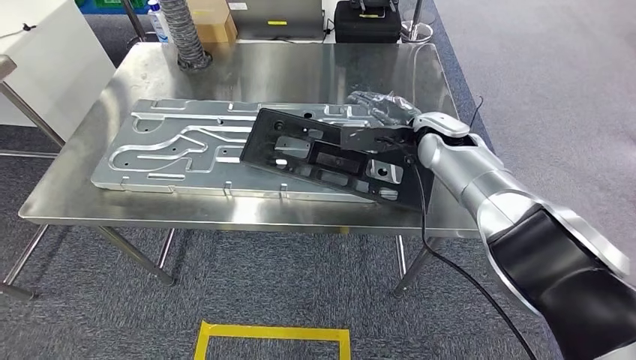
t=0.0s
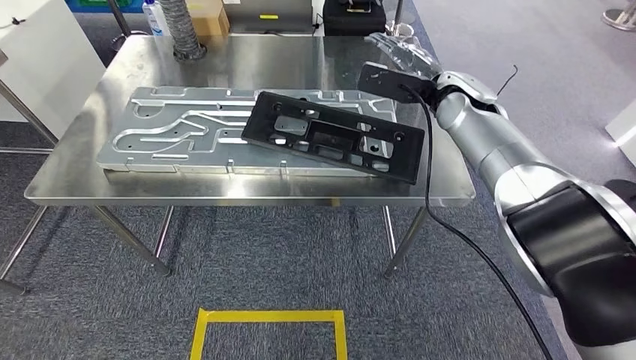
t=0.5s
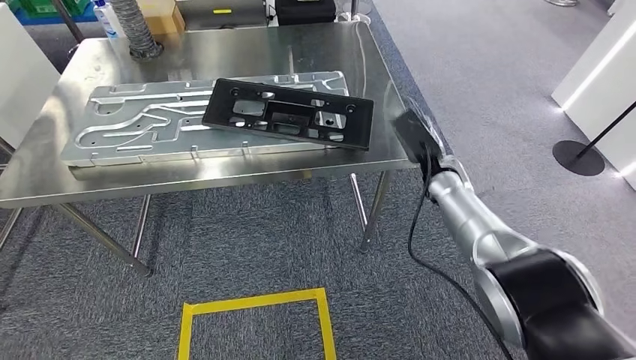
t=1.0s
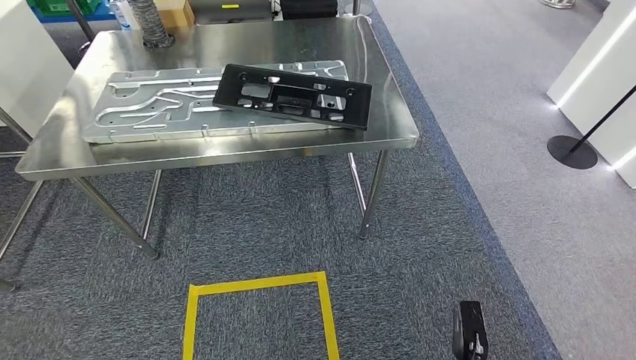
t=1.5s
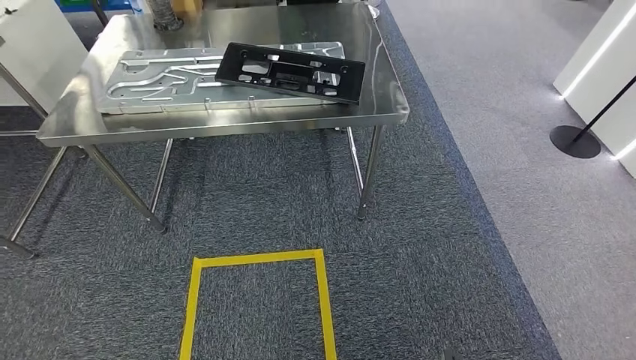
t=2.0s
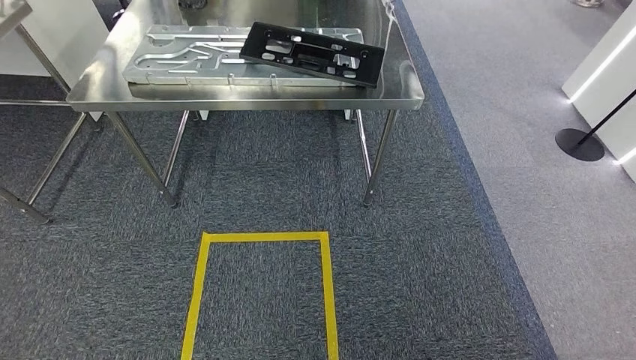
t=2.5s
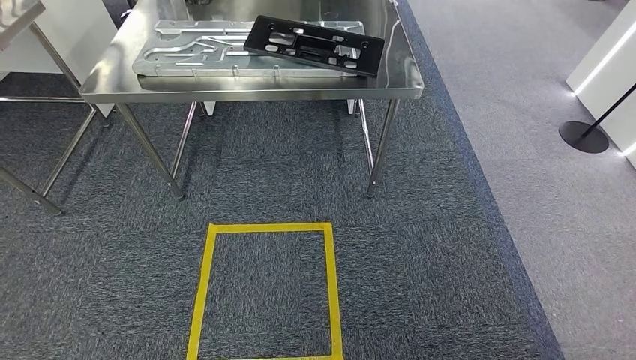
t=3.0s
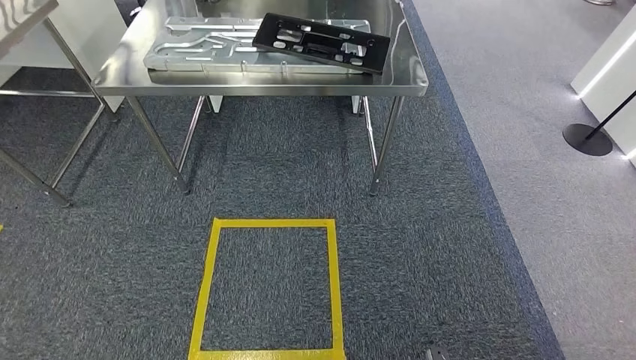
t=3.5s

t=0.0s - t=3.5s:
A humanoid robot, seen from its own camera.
Step, t=1.5s - t=3.5s: Move to the initial position of the shelf.

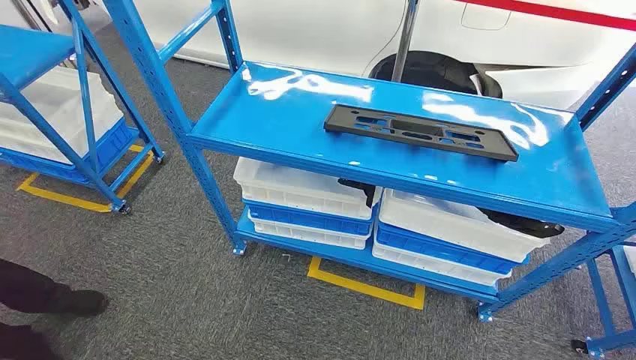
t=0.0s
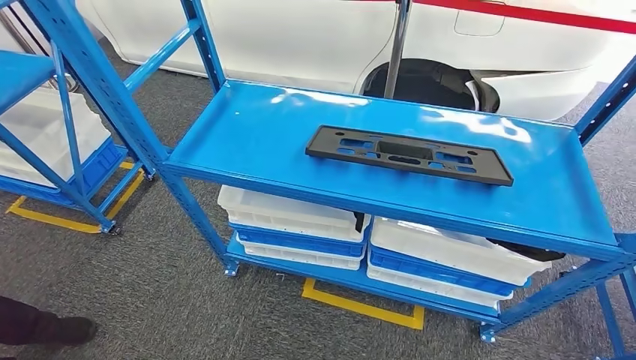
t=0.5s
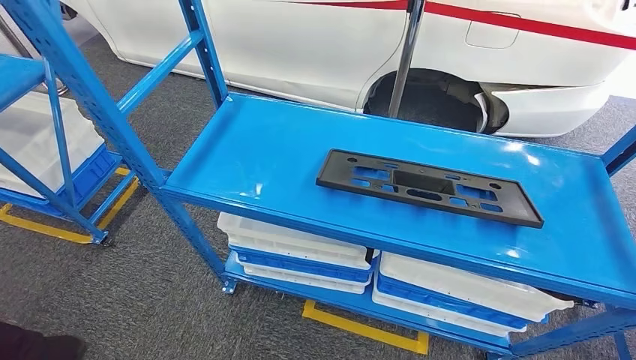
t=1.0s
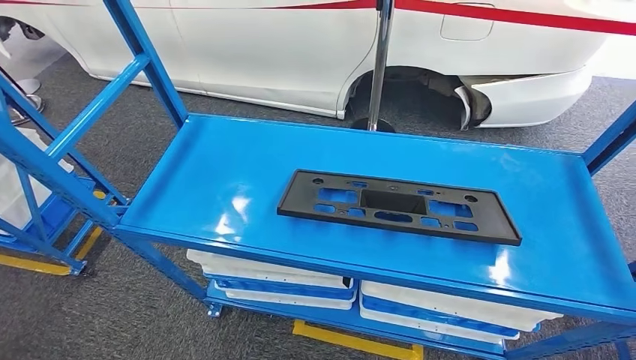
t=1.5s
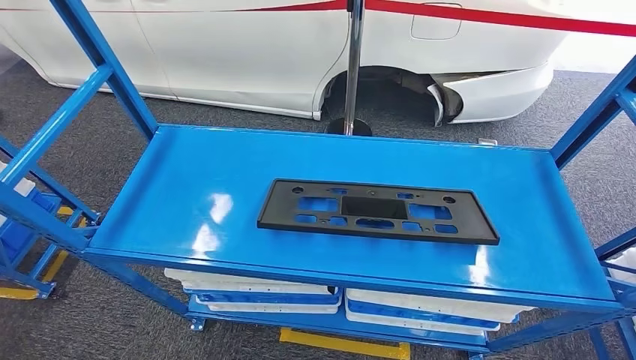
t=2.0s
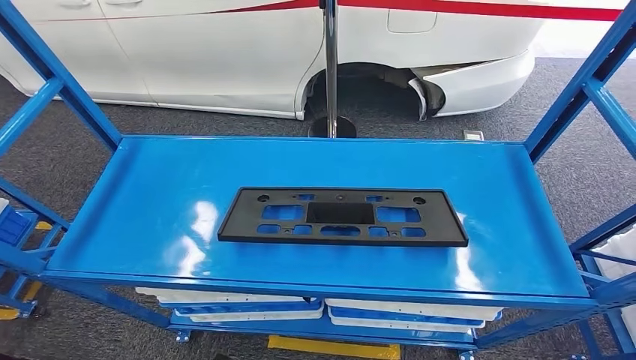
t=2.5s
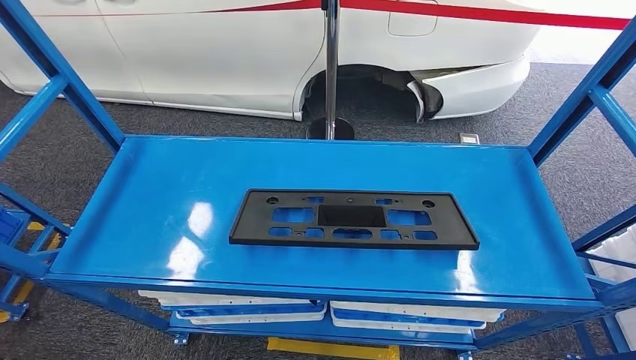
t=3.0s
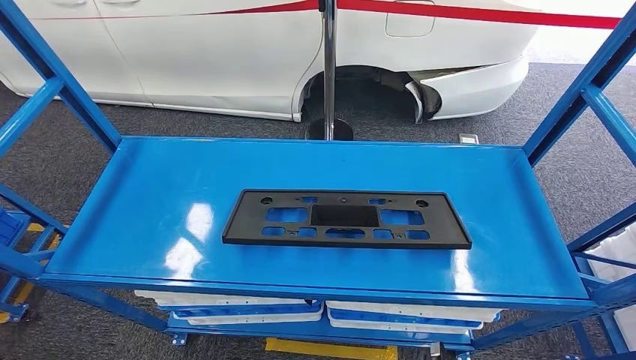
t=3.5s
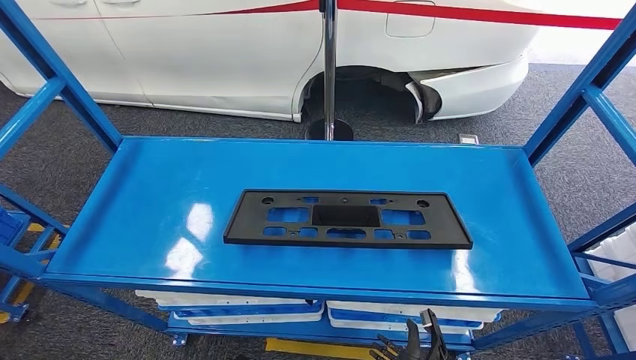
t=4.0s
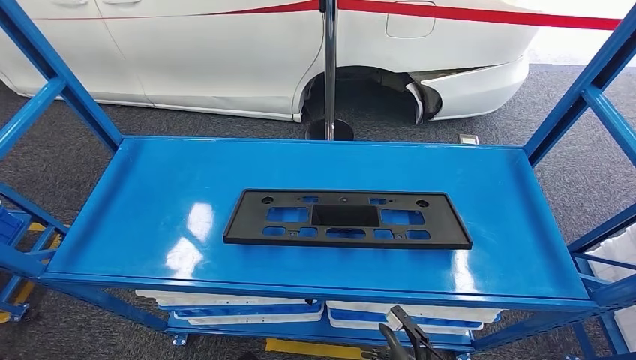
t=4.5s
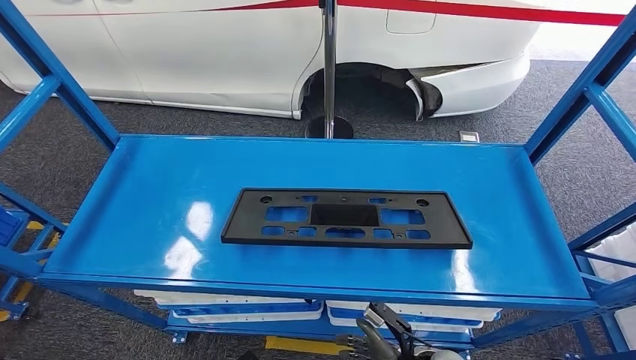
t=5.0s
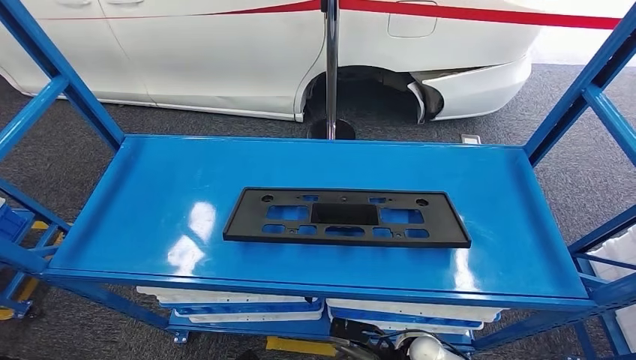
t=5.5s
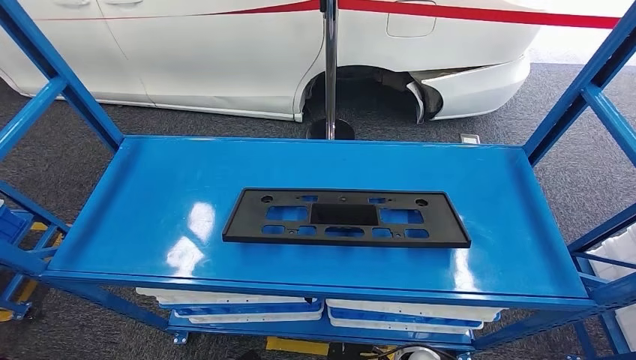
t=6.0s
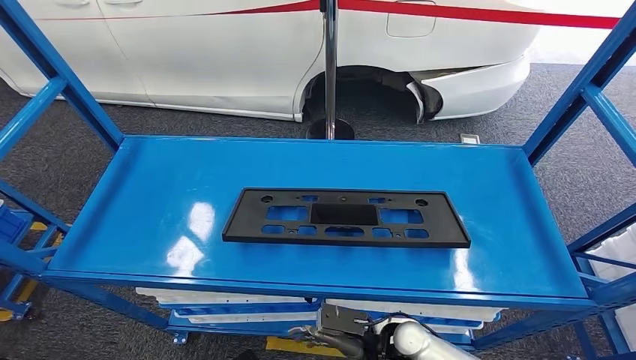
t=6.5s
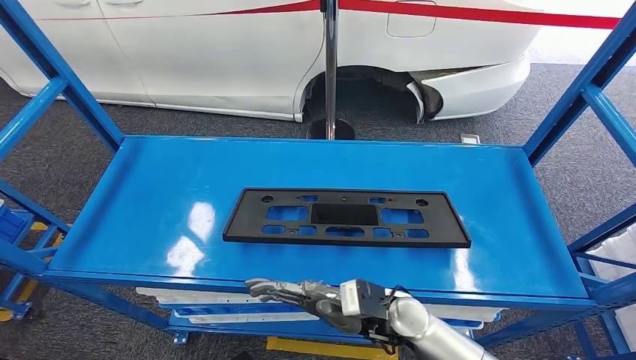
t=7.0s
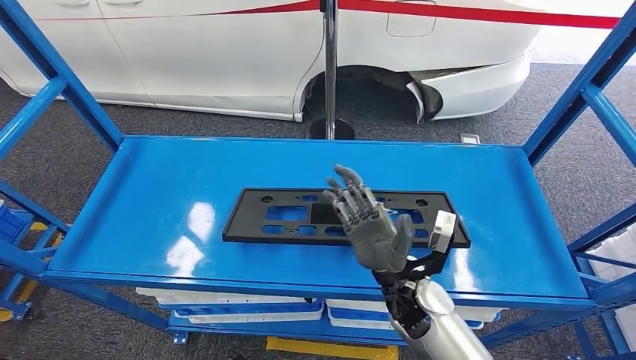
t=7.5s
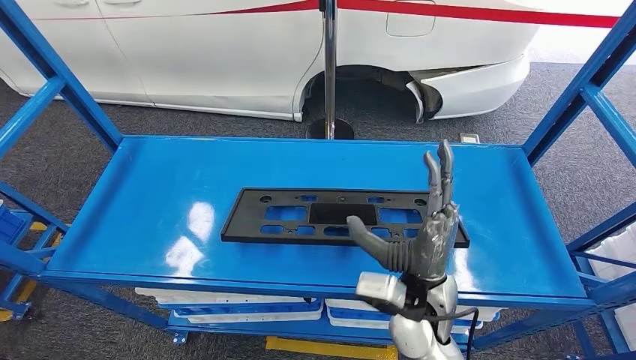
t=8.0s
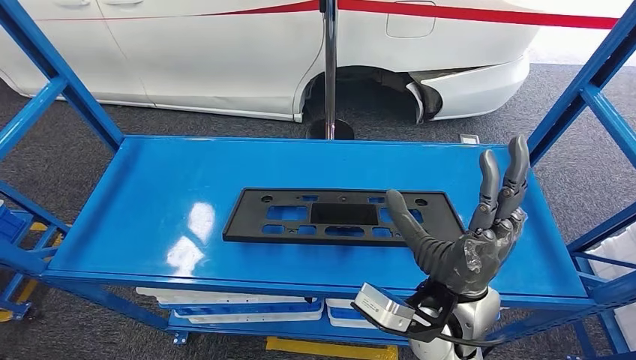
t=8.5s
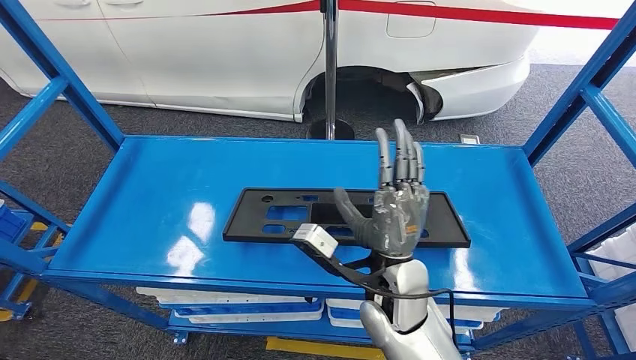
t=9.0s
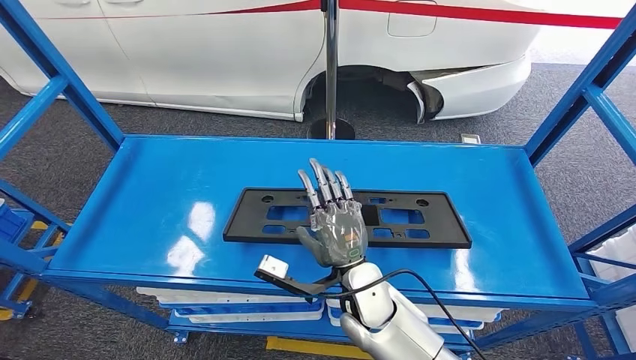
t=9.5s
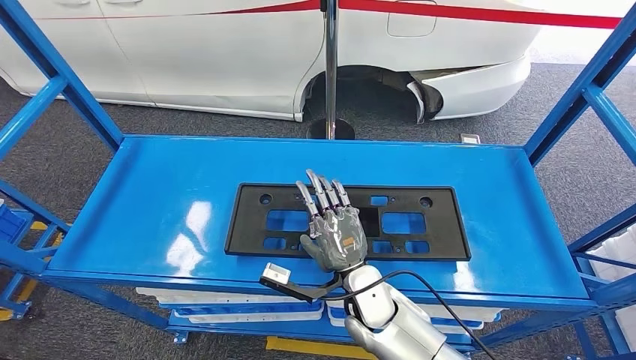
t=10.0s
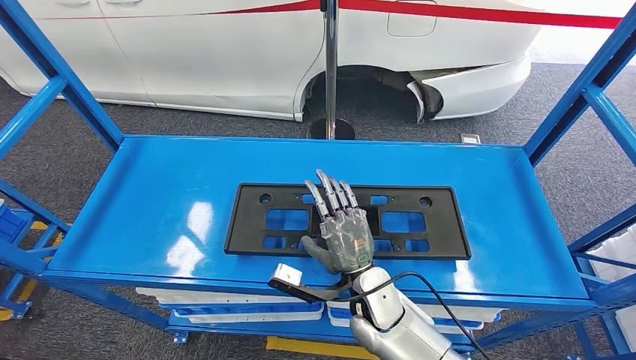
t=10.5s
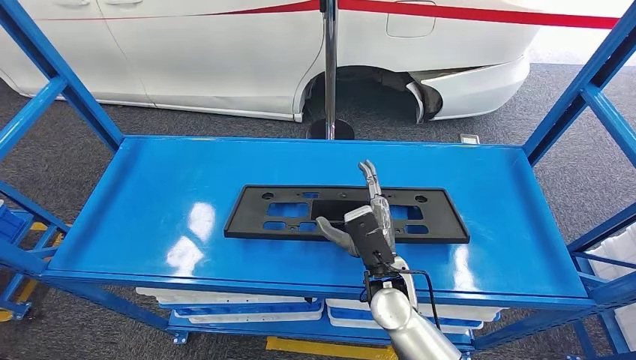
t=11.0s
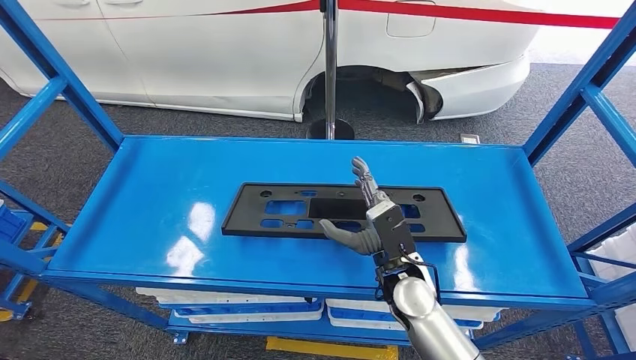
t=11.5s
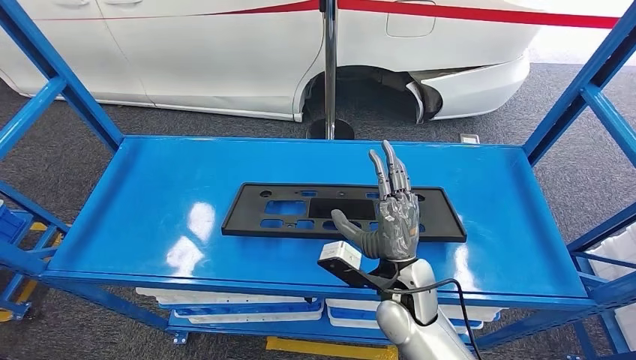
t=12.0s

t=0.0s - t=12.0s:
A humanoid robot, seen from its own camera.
t=4.0s - t=6.0s: The right hand moves to the left, about 5 cm.
t=6.0s - t=8.0s: The right hand moves upward, approximately 25 cm. Meanwhile the left hand shifts by some 5 cm.
t=8.0s - t=10.0s: The right hand moves downward and to the left, about 10 cm.
t=10.0s - t=12.0s: The right hand ends up about 5 cm from where it was.

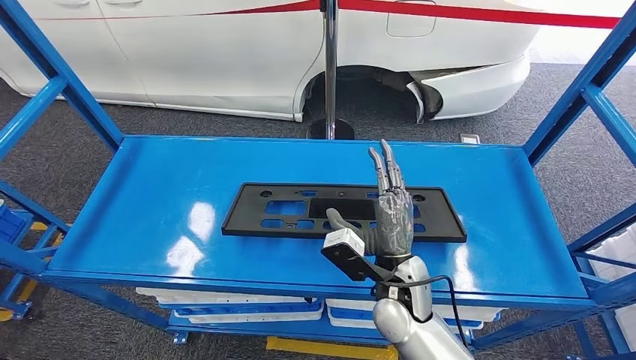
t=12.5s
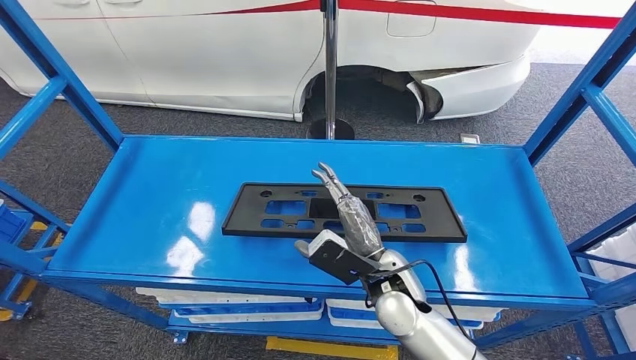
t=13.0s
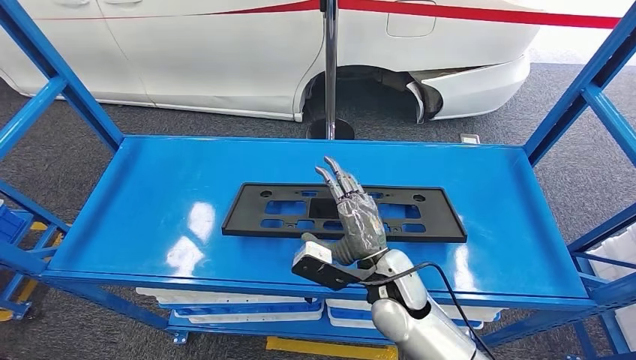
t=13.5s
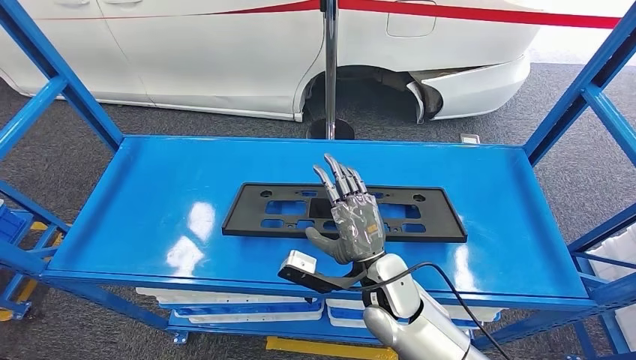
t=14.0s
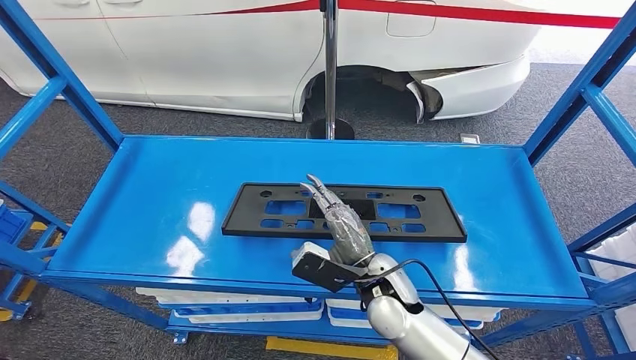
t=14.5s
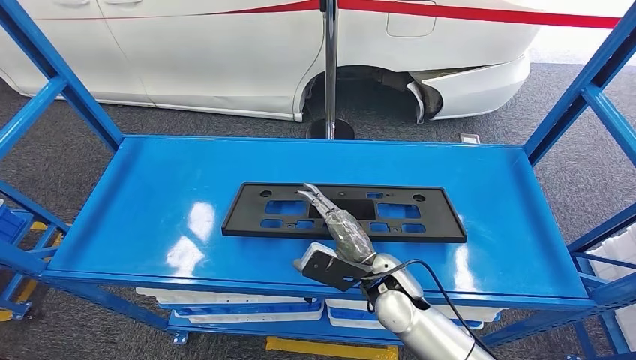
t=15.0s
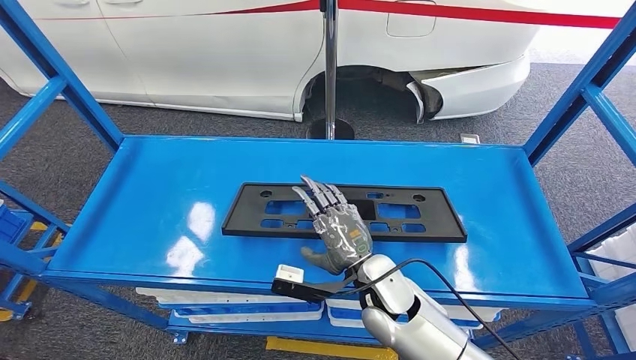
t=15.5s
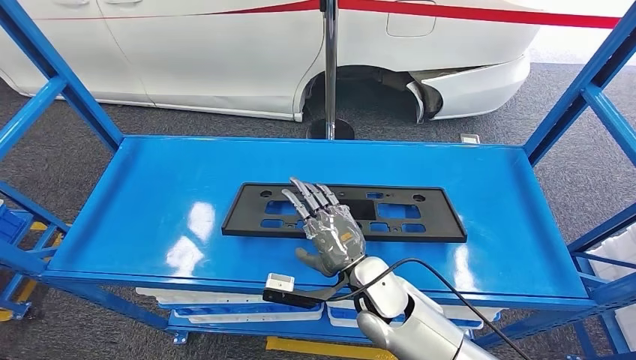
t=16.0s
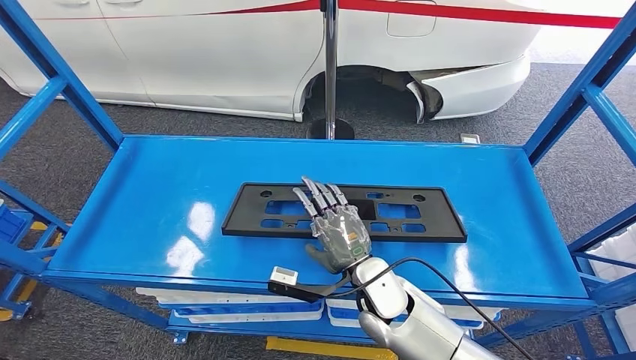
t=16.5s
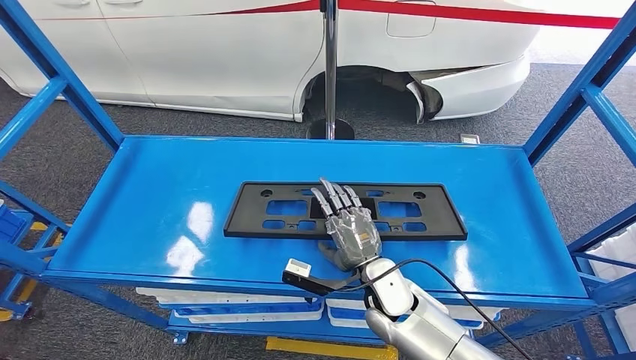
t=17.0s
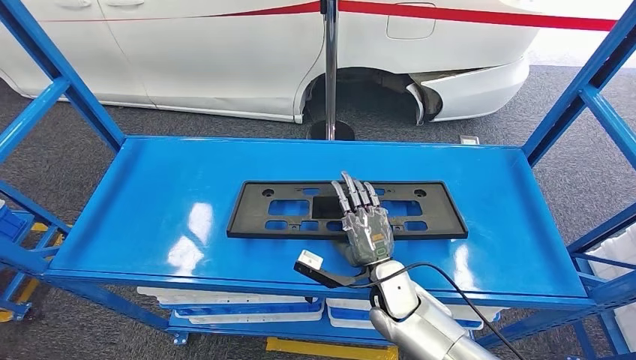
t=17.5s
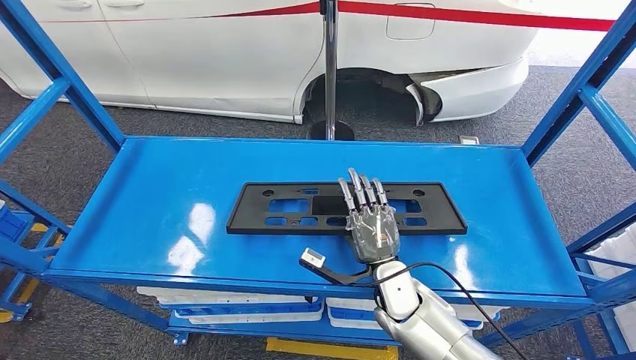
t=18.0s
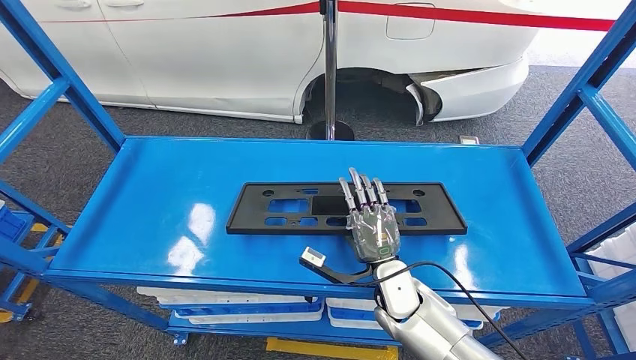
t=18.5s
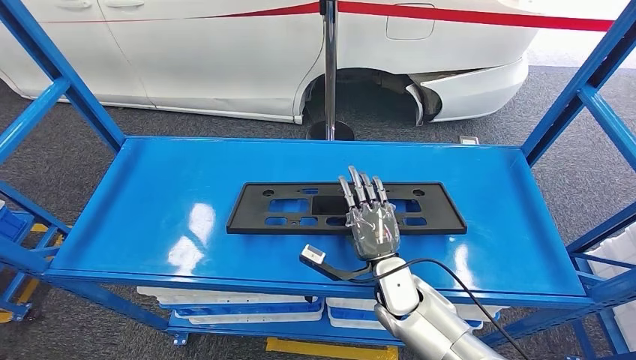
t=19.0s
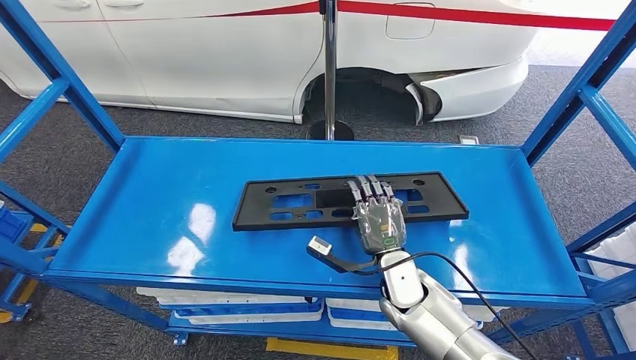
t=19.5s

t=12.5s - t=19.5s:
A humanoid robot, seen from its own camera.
t=16.0s - t=17.5s: The right hand moves downward, some 5 cm.
t=17.5s - t=19.5s: There are only small adjustments of the hands.
